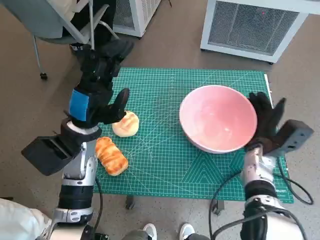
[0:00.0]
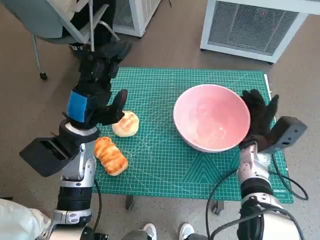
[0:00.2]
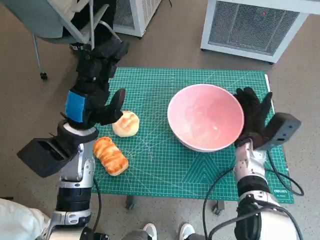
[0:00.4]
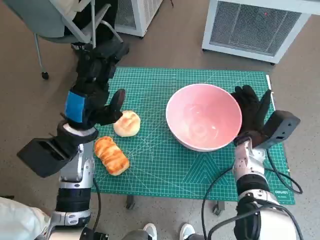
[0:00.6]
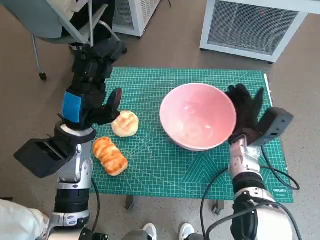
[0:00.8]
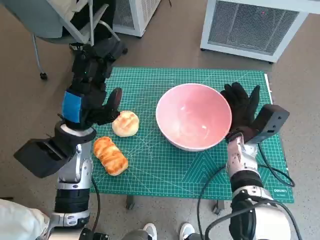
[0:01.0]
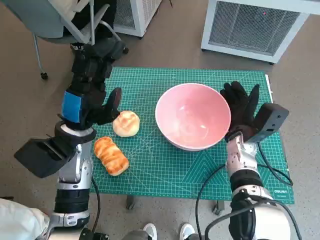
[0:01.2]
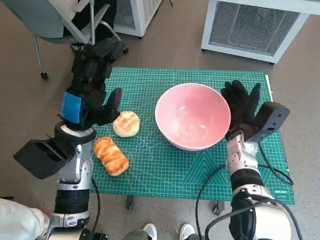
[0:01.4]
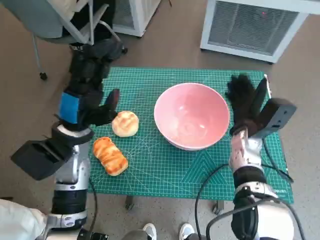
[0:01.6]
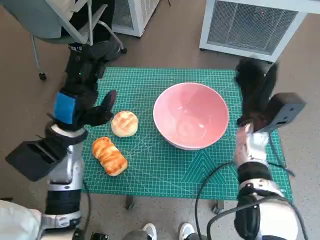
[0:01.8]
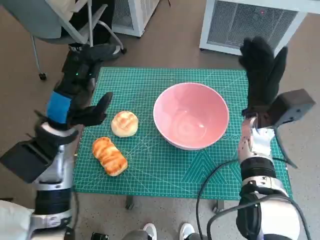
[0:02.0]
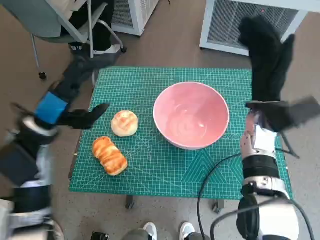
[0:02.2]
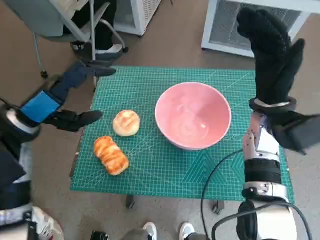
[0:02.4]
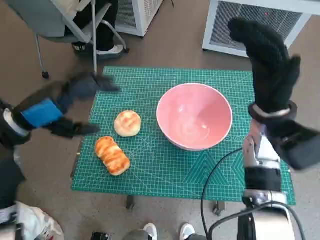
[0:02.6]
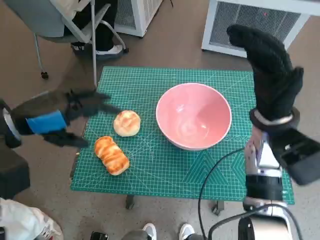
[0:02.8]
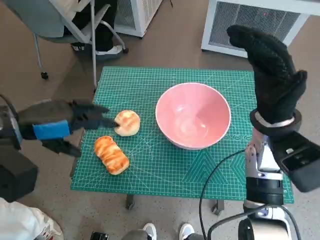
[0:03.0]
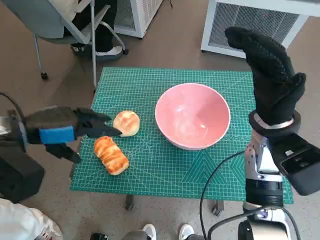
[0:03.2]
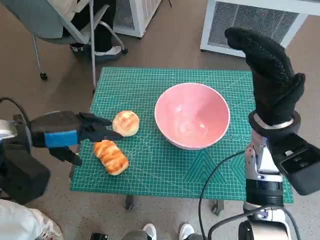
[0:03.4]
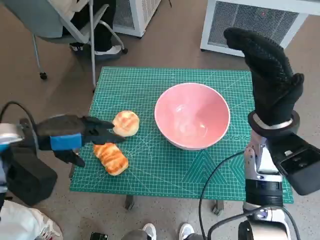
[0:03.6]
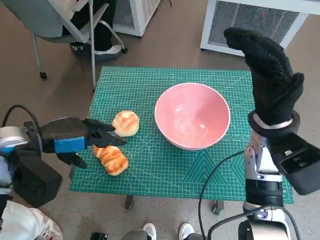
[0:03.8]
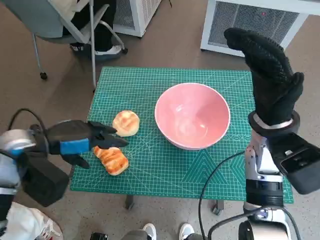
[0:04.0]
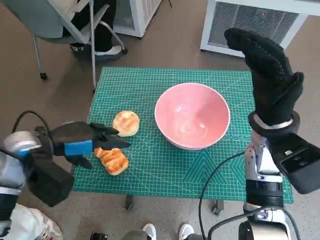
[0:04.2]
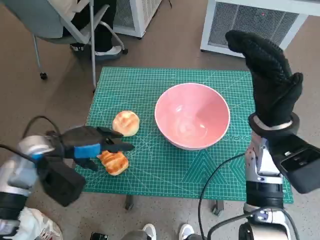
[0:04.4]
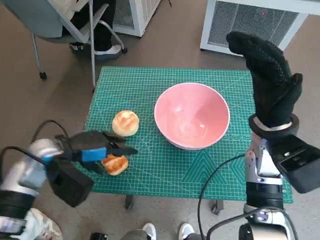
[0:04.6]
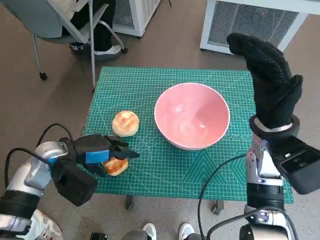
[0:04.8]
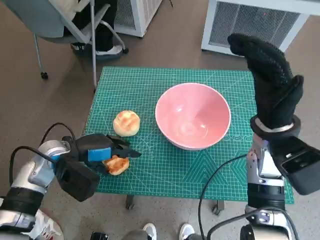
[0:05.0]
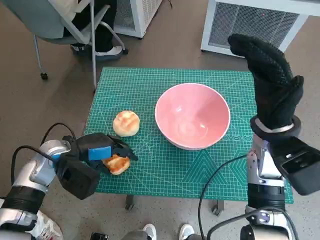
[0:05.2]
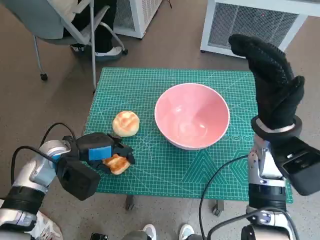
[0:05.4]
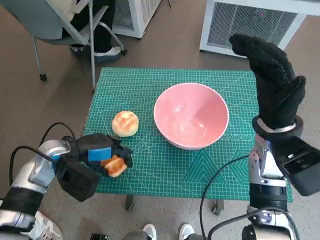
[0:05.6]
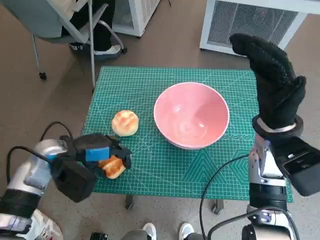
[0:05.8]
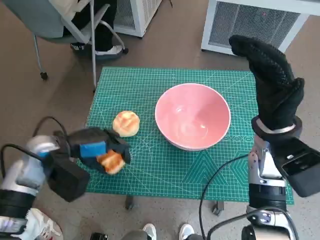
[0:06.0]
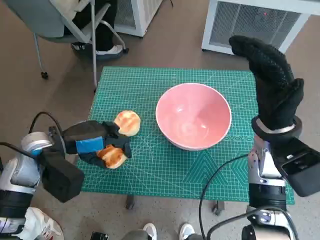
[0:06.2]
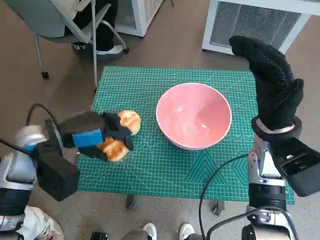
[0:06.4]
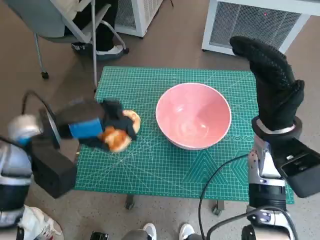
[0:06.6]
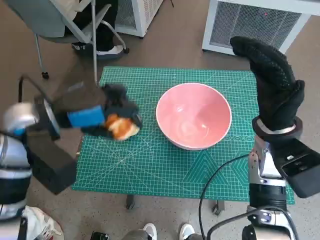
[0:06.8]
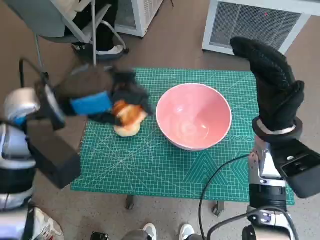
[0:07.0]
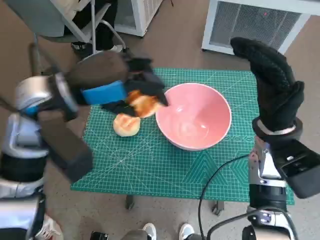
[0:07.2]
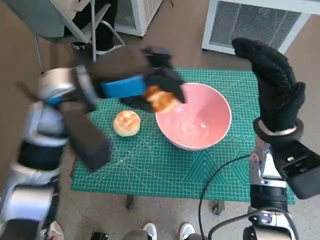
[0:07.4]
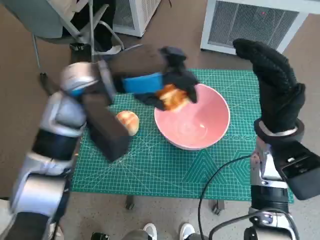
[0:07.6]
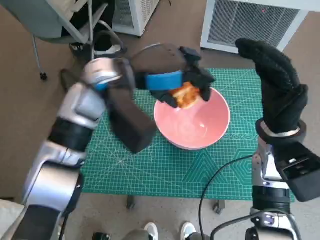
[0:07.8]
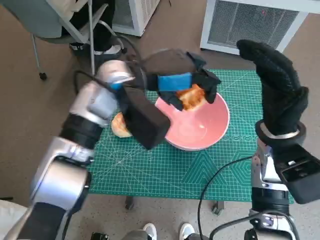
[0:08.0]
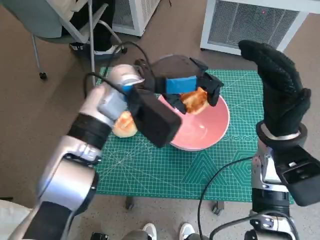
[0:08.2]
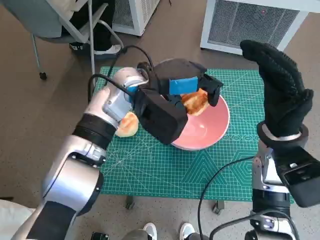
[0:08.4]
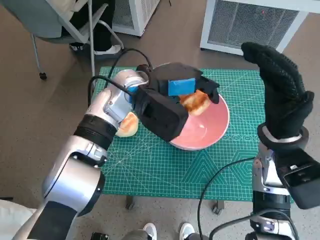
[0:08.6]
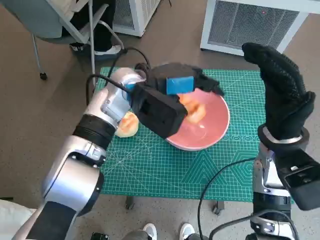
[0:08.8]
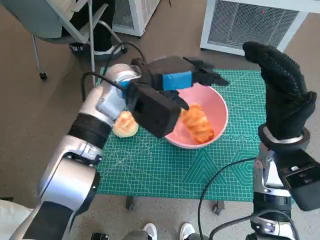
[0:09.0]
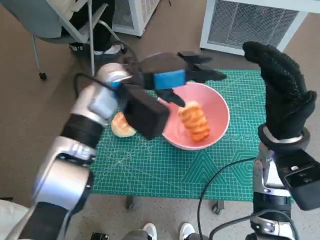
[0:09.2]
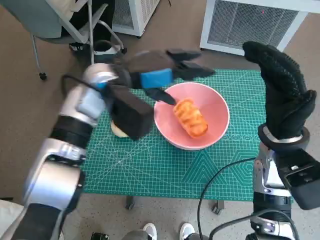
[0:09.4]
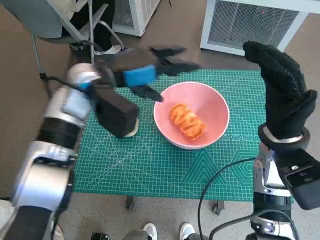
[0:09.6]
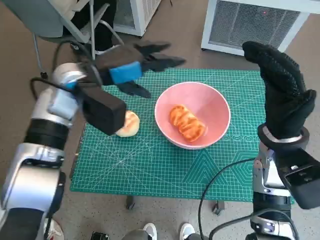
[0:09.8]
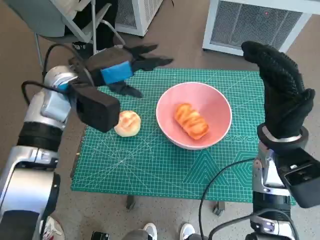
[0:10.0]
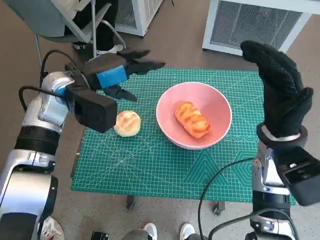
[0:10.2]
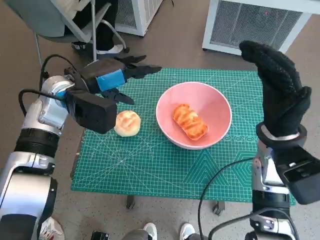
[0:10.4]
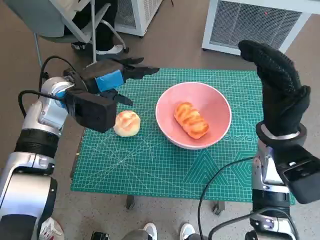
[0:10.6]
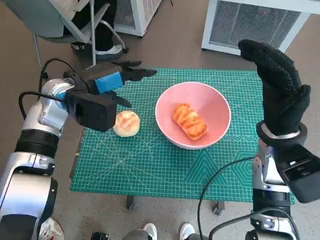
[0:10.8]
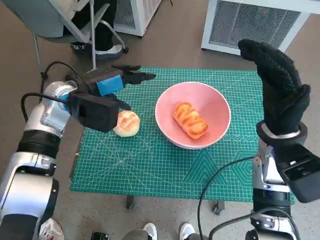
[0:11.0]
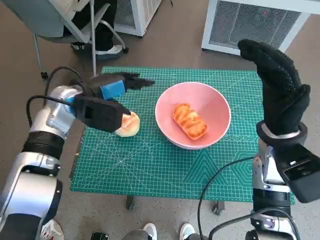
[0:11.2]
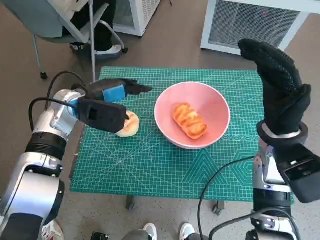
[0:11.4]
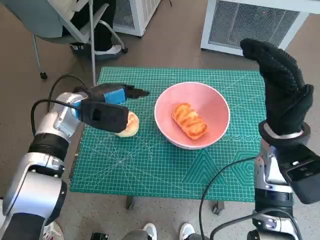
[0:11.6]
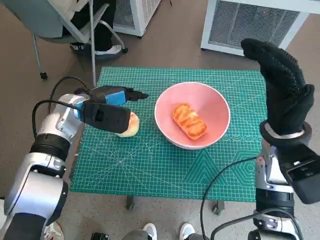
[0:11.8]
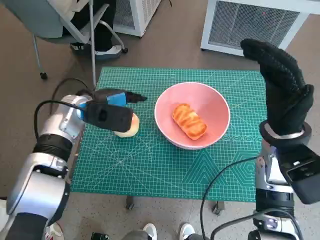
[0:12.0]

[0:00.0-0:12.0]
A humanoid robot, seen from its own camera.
Task of the whole recording: Push the bowl to the center of the table and put the bread into the bowl.
Step, 0:00.0 to 0:02.0: Move the pink bowl to the center of table with right hand.
Step, 0:02.2 to 0:05.4: Grasp the long bread with left hand.
Step, 0:05.6 to 0:09.4: Place the long bread in pink bowl with left hand.
0:00.0 to 0:01.6: The right hand moves about 5 cm.
0:01.6 to 0:03.0: The left hand travels to the left and upward by roughly 10 cm, while the right hand heads upward, covering some 10 cm.
0:03.0 to 0:04.4: The left hand moves downward, approximately 10 cm.
0:04.4 to 0:06.0: The hands make only small movements.
0:06.0 to 0:07.6: The left hand moves upward and to the right, some 15 cm.
0:07.6 to 0:09.0: The left hand moves to the right, about 5 cm.
0:09.0 to 0:10.4: The left hand moves to the left, approximately 10 cm.
0:10.4 to 0:12.0: The left hand is displaced downward by about 5 cm.

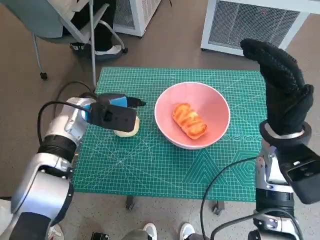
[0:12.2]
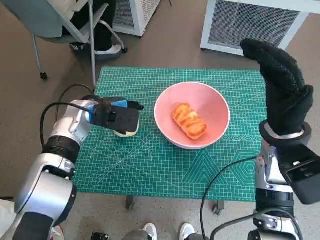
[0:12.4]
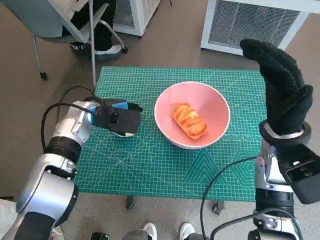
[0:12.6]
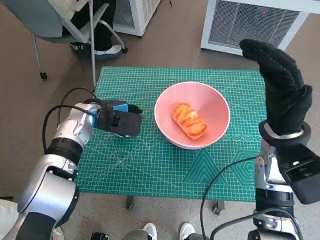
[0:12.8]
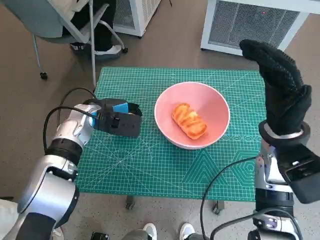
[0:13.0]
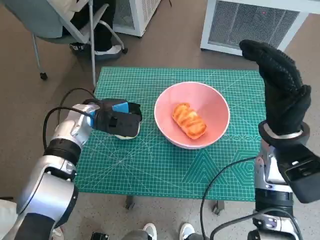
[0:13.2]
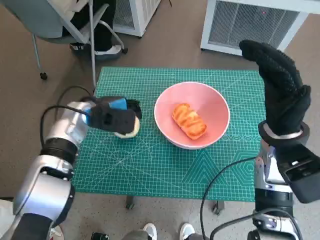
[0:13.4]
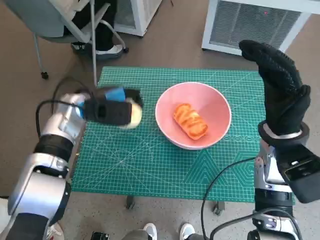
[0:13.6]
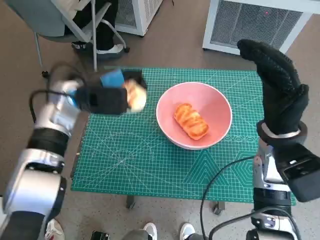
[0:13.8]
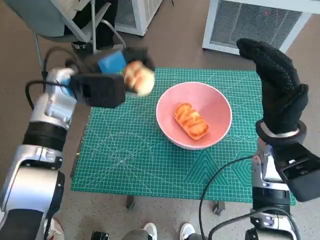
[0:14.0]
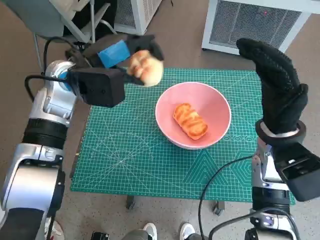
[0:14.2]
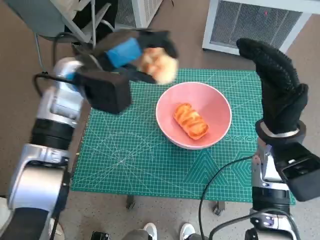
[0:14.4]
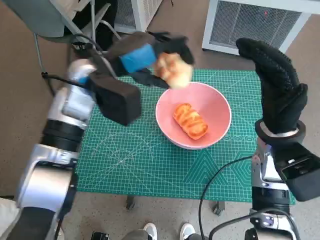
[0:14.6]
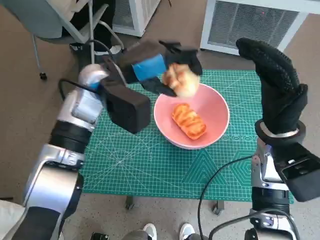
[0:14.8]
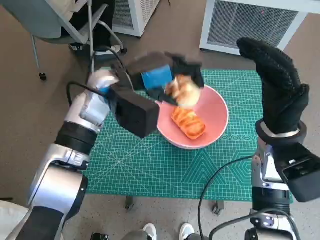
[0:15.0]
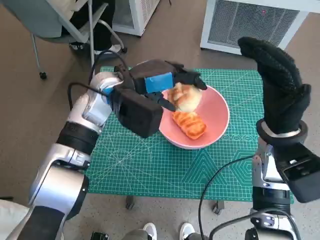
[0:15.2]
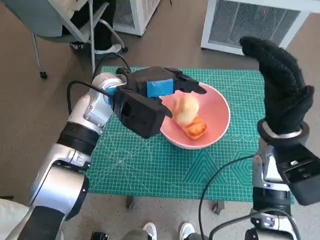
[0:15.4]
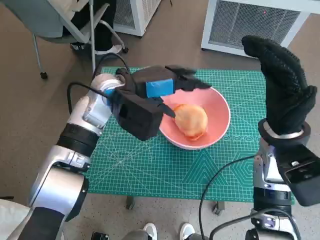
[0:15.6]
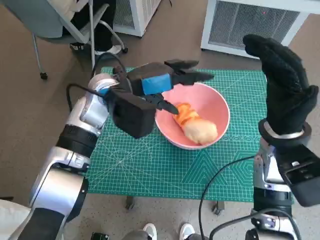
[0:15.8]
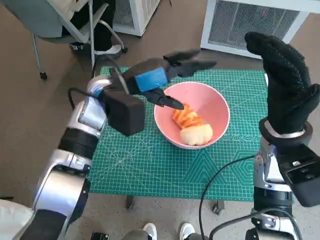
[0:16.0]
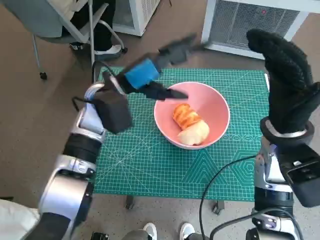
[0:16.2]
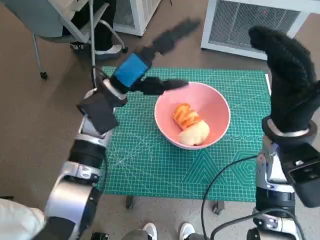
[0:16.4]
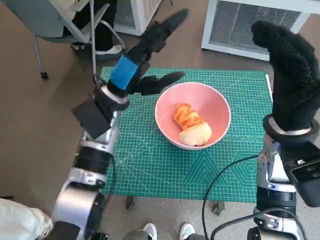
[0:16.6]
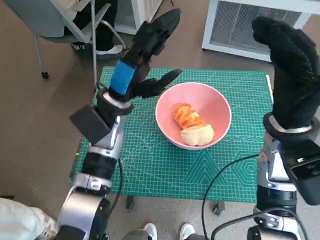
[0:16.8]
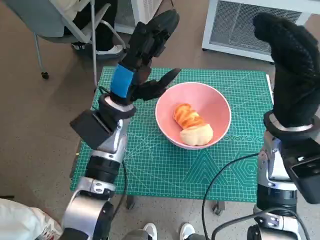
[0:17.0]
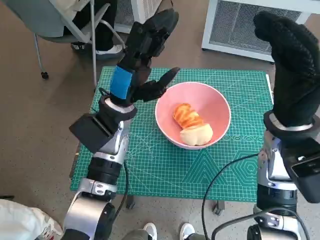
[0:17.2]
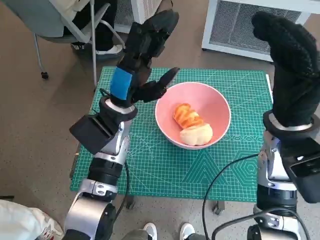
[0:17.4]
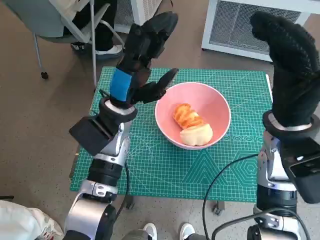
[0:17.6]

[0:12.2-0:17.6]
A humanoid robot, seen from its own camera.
Task of the whole recording: Push the bowl to the center of the table and put the bread into the bowl.
Step, 0:13.4 to 0:16.2: Place the round bread in pink bowl with left hand.
0:12.2 to 0:13.6: The hands move only a little.
0:13.6 to 0:15.0: The left hand moves upward and to the right, approximately 10 cm.

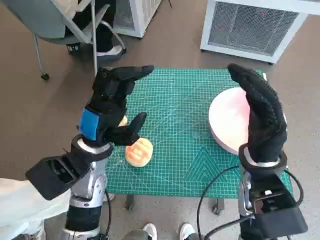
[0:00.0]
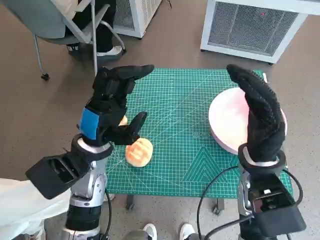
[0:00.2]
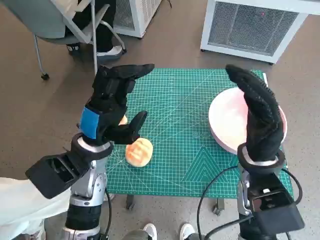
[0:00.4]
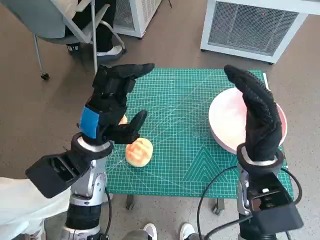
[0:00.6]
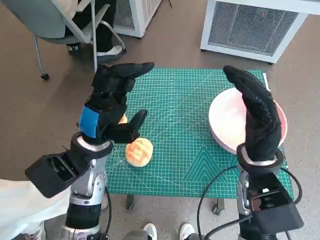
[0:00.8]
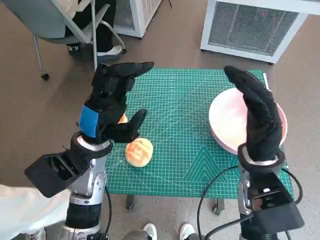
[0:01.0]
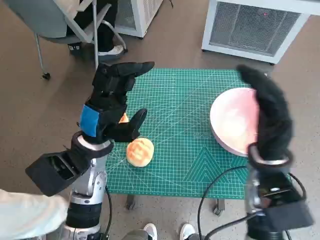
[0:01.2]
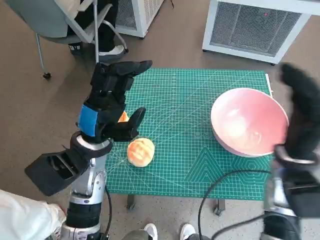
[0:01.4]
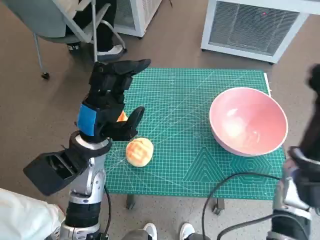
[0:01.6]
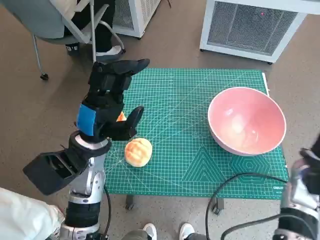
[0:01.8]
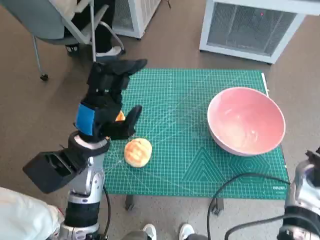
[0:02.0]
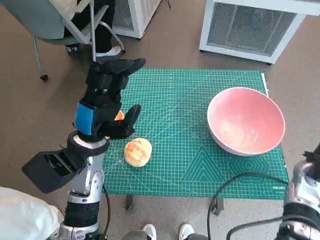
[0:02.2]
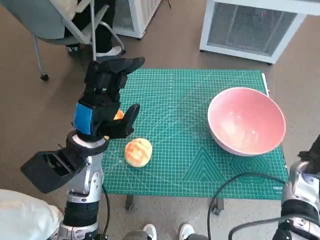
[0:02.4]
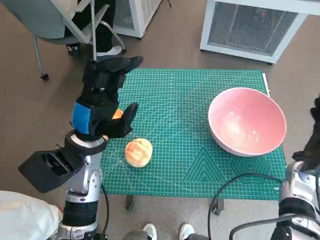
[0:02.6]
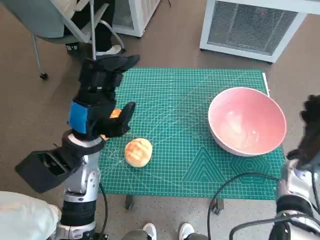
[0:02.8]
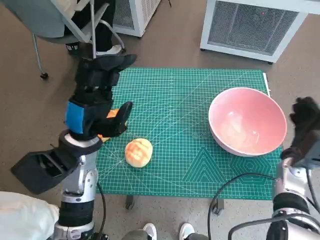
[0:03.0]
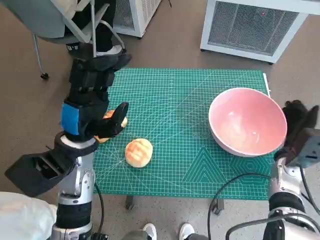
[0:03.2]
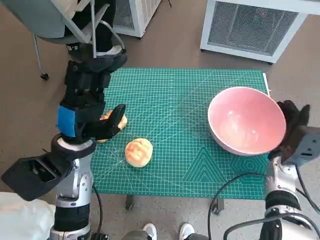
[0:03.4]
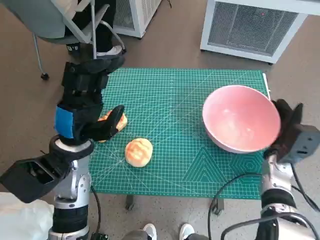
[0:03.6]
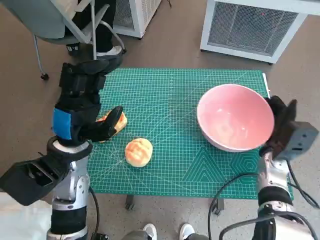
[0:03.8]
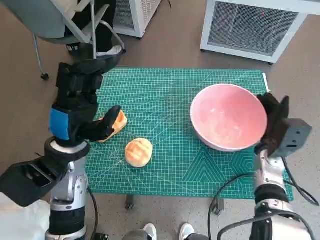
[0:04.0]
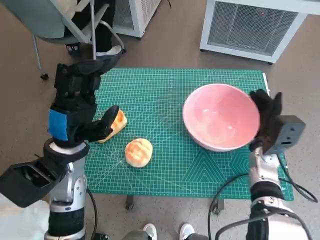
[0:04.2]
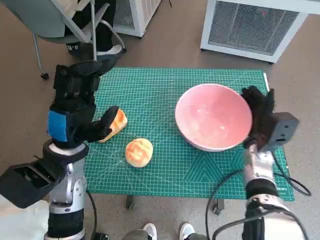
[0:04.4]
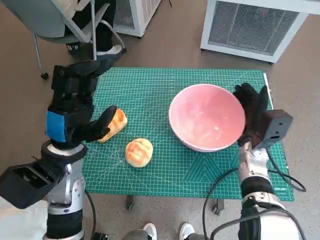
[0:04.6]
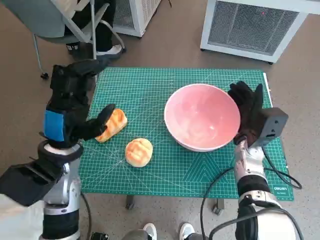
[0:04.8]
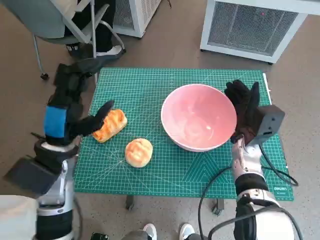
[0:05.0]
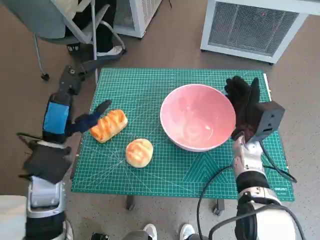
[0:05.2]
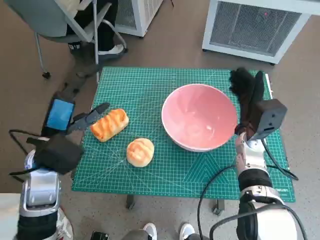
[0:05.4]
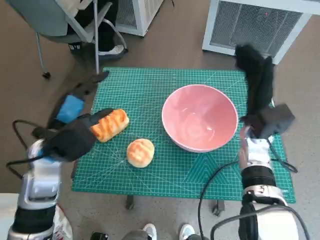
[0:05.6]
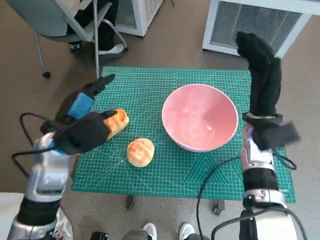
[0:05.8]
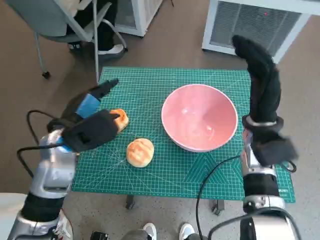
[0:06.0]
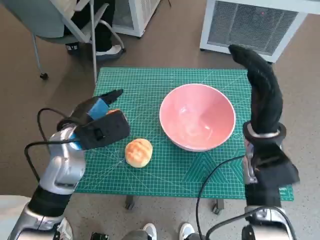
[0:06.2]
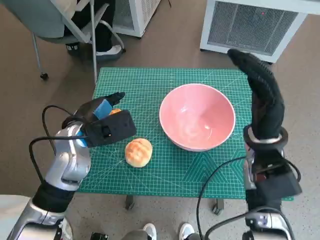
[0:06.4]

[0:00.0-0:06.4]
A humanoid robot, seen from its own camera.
Task of the whole recording: Push the bowl to the center of the table and put the bread into the bowl.
Step, 0:00.0 to 0:05.6: Move the pink bowl to the center of table with right hand.
0:01.6 to 0:03.2: The right hand travels downward by some 10 cm.
0:03.2 to 0:04.8: The right hand travels to the left by roughly 10 cm.
0:04.8 to 0:06.4: The right hand travels upward by roughly 10 cm.
